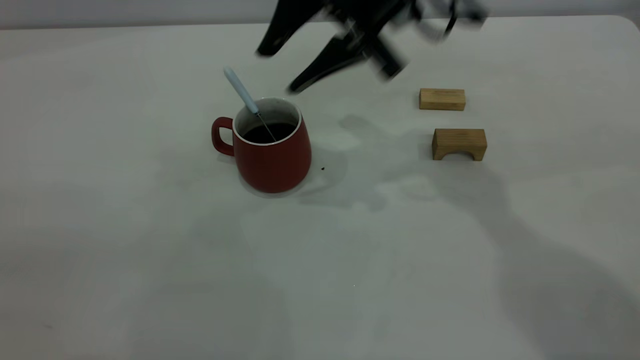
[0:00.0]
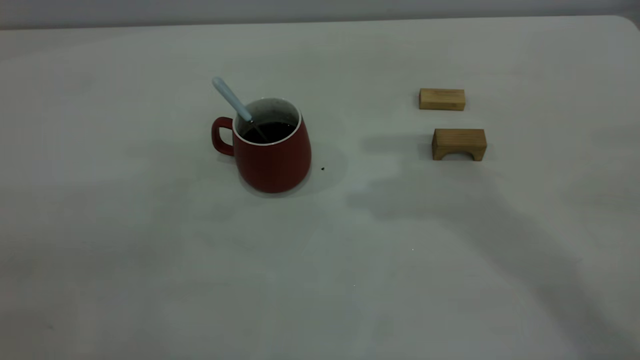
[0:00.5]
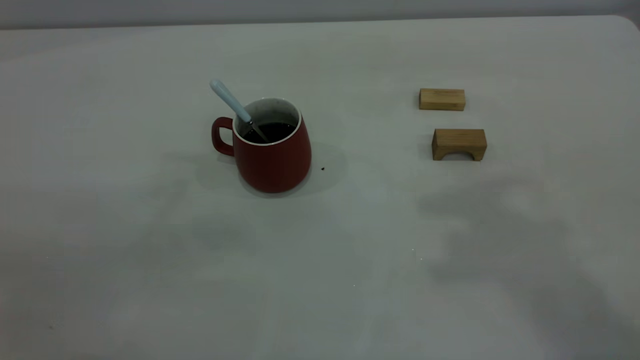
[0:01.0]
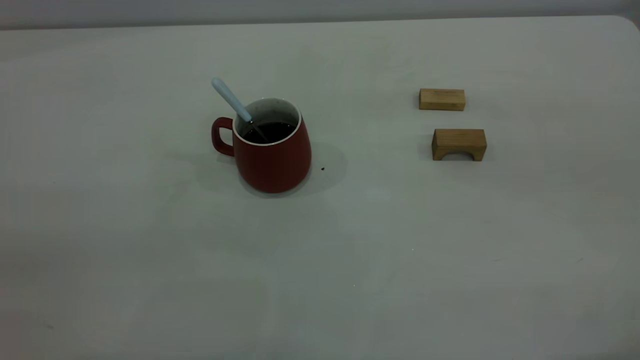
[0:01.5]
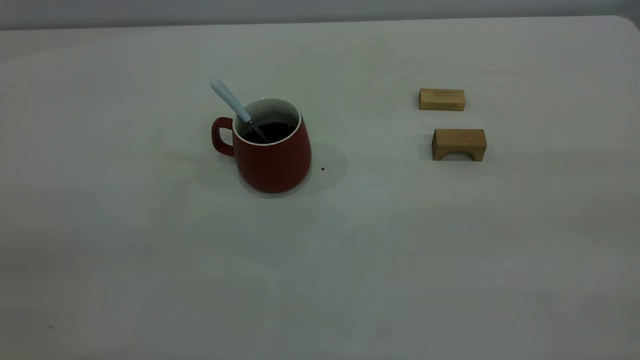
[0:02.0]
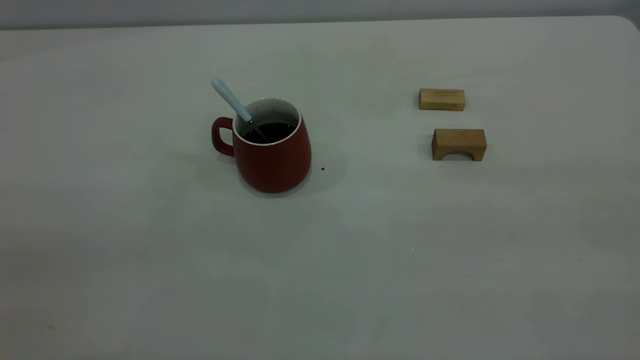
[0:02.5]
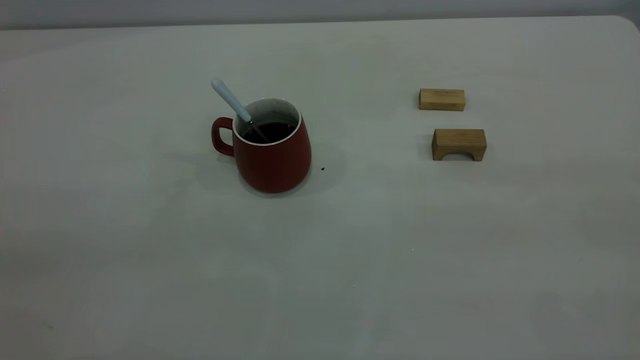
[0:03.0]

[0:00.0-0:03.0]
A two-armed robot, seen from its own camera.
0:00.0 to 0:01.5: The right gripper heads backward, to the right and upward, covering roughly 40 cm.
